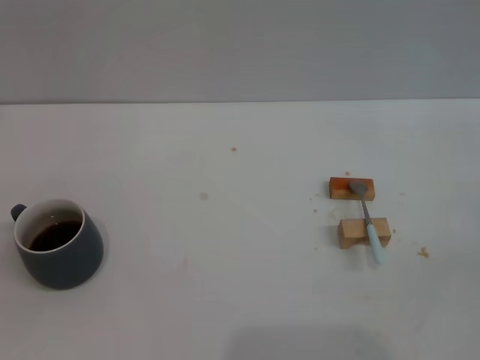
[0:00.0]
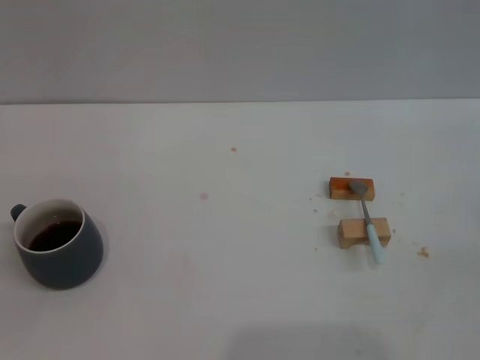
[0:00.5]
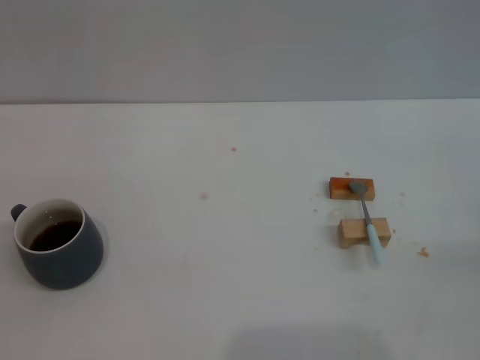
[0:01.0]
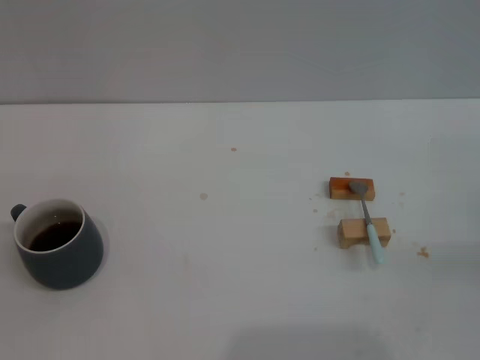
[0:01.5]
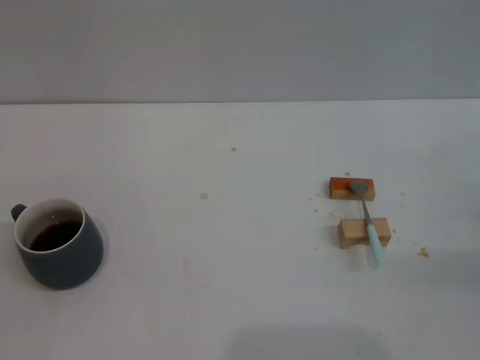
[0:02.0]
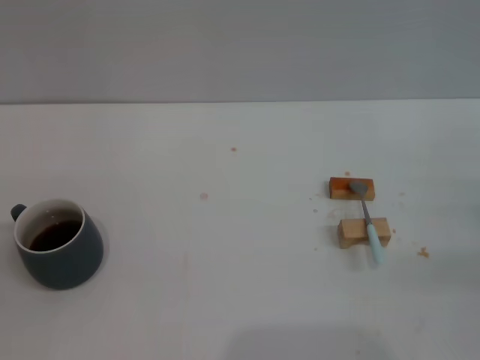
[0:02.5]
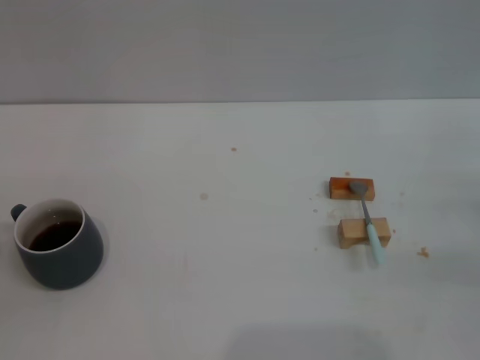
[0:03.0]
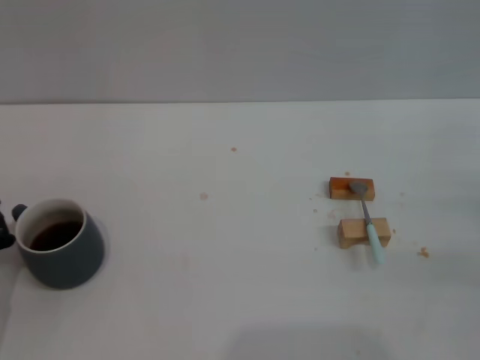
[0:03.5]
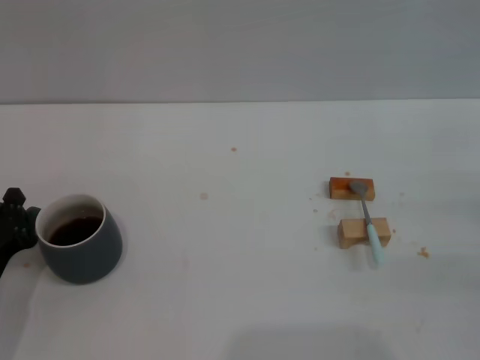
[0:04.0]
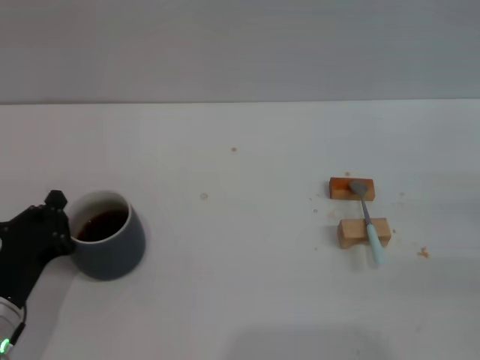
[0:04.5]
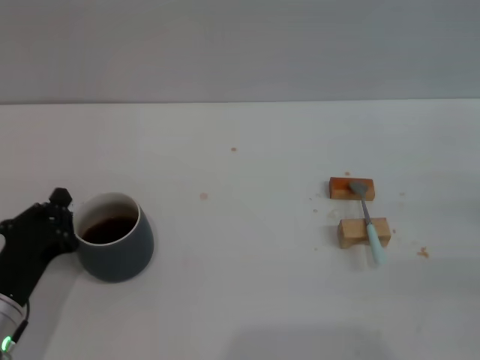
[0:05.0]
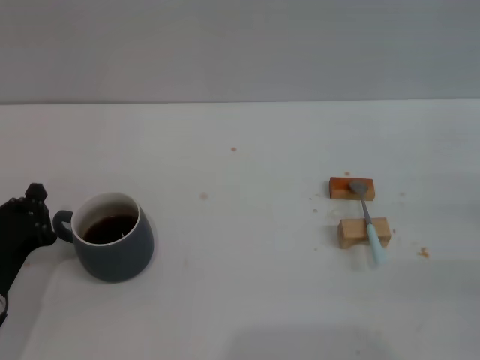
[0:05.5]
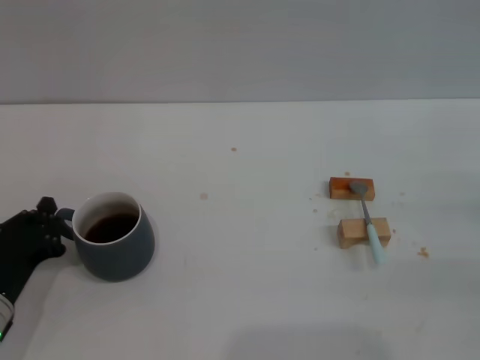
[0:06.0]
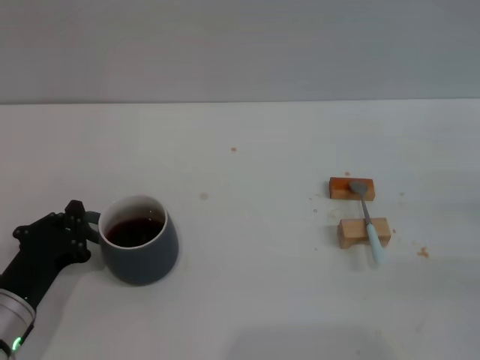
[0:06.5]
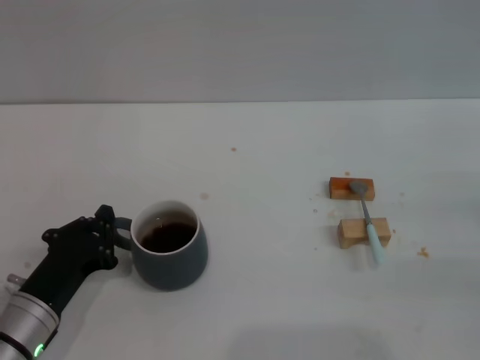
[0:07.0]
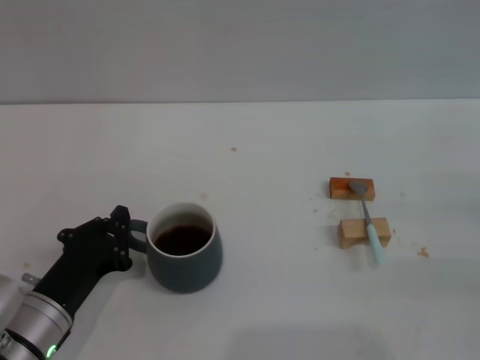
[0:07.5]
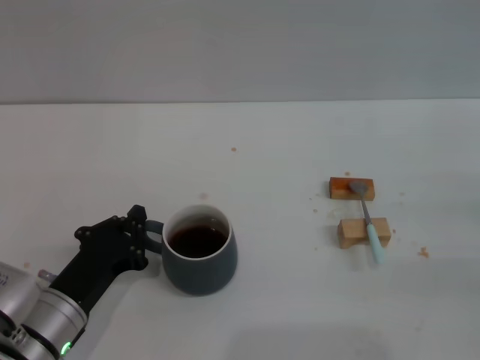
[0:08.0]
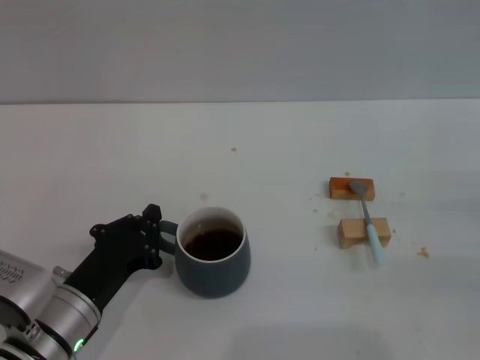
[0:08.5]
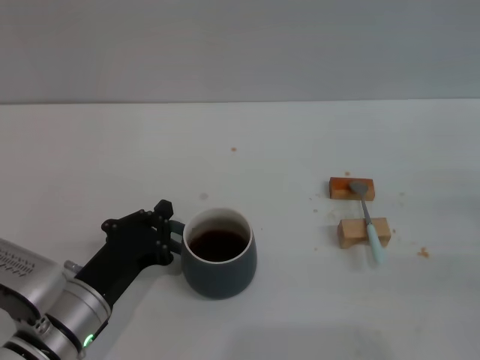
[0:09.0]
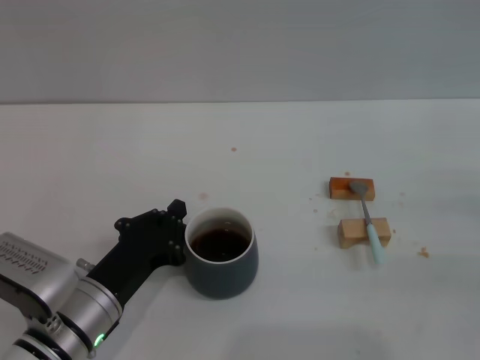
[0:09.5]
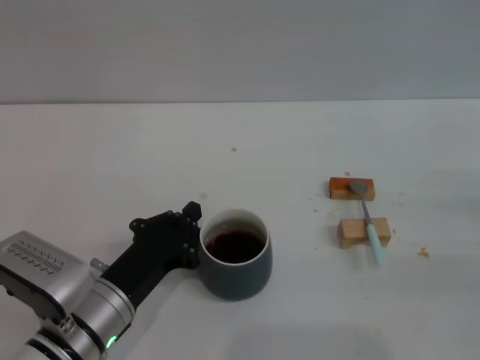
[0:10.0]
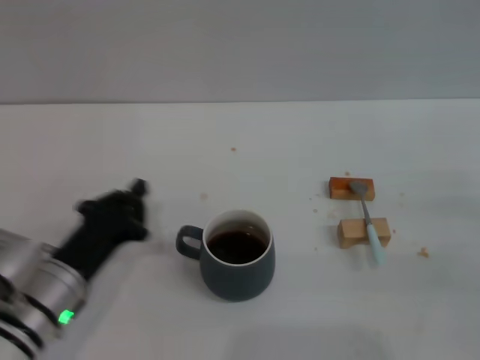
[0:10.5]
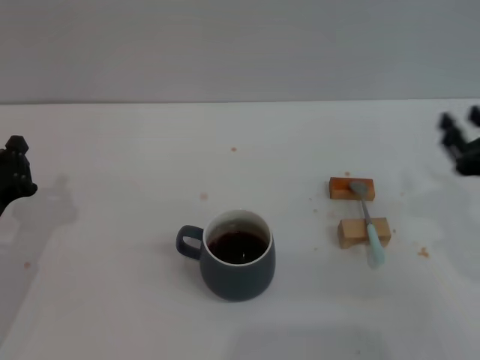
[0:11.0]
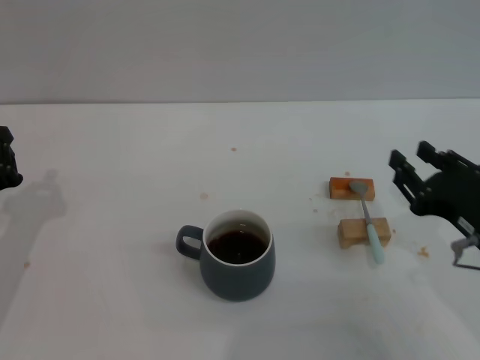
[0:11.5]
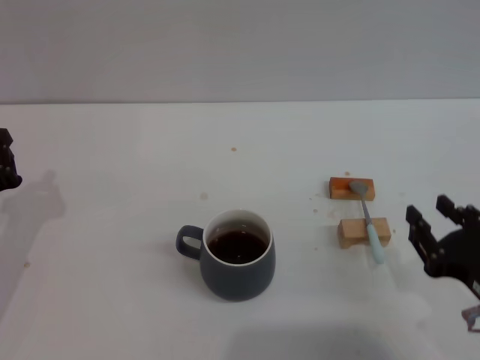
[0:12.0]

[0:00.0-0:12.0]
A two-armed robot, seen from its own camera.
Task of the whole recording: Move the grey cup to the center, lift the blue spoon, stir it three times in the cup, and put the spoon into the cup.
Step, 0:00.0 to 0:11.0: Move the cup with coffee to the center of view with the left gripper.
0:02.0 to 0:04.0: The left gripper heads to the right, covering approximately 10 cm, and closes.
0:04.0 to 0:06.0: There are only small adjustments of the grippers.
0:06.0 to 0:08.0: The left gripper is displaced to the right by roughly 5 cm.
0:08.0 to 0:10.0: The grippers stay close to where they were, moving slightly.
0:10.0 to 0:12.0: The right gripper is displaced to the left and backward by about 15 cm; the left gripper is displaced to the left by roughly 15 cm.

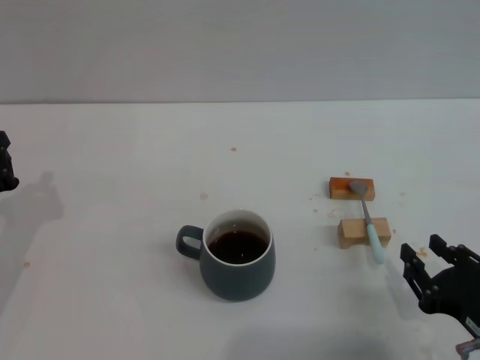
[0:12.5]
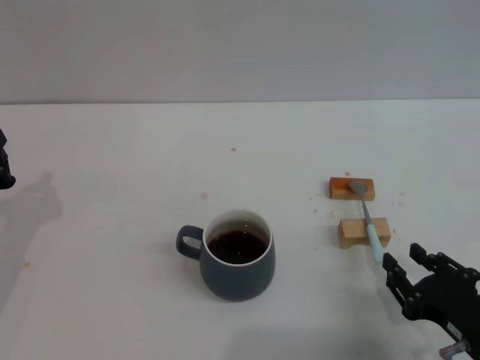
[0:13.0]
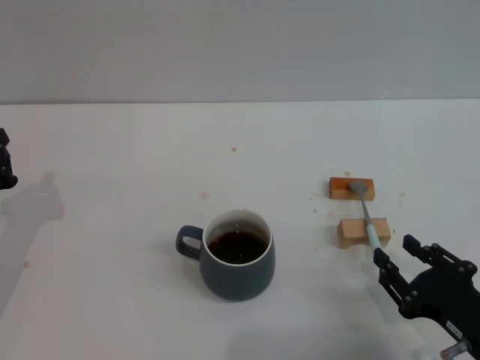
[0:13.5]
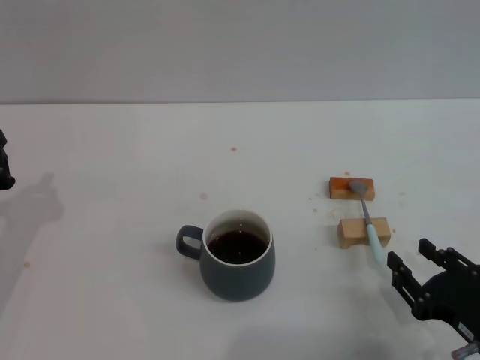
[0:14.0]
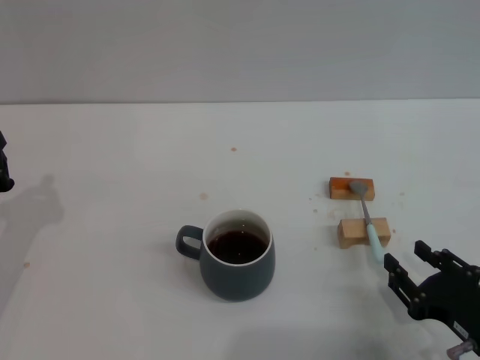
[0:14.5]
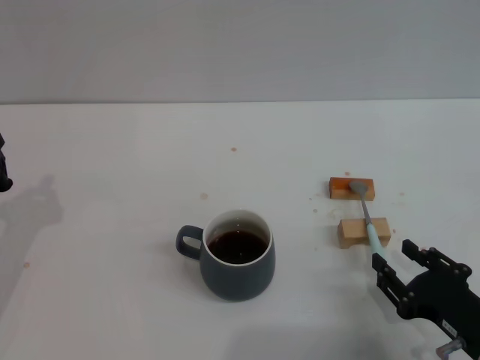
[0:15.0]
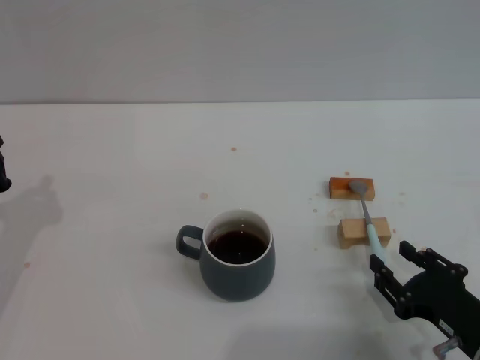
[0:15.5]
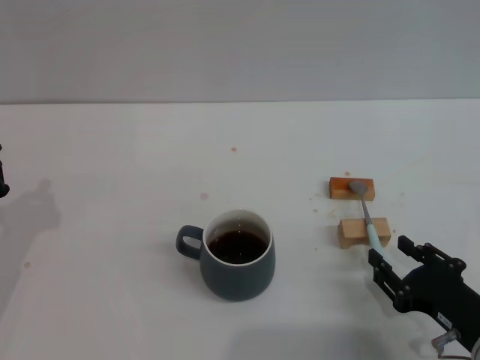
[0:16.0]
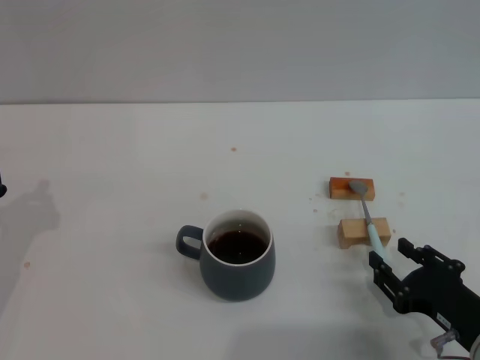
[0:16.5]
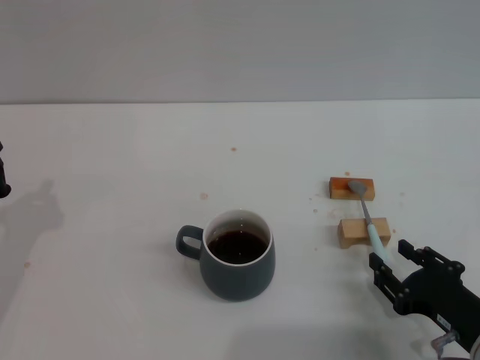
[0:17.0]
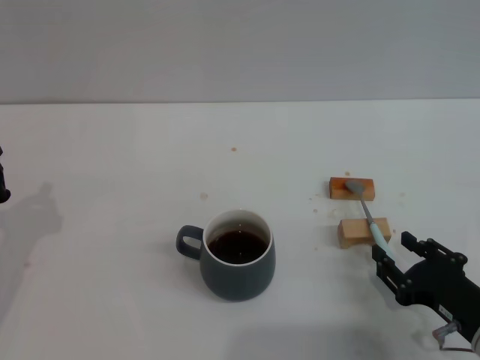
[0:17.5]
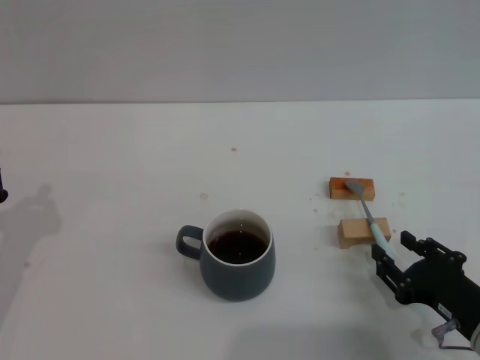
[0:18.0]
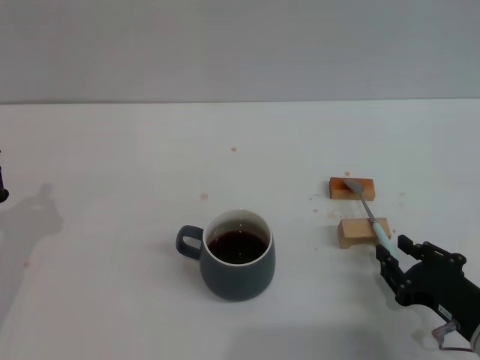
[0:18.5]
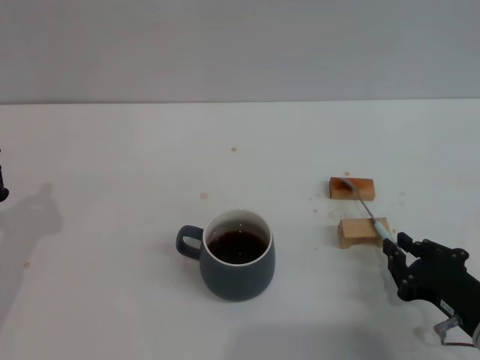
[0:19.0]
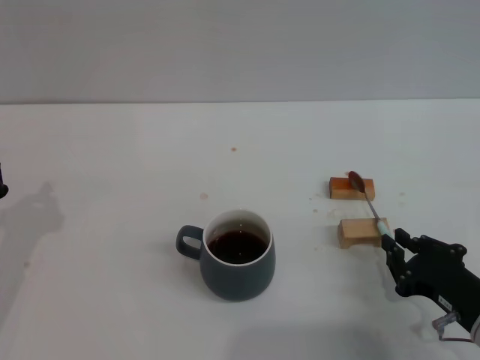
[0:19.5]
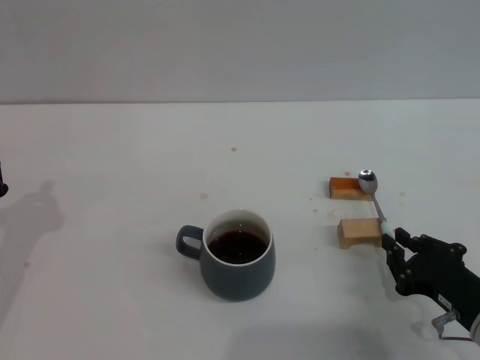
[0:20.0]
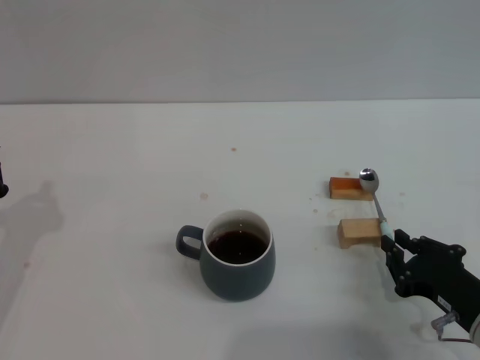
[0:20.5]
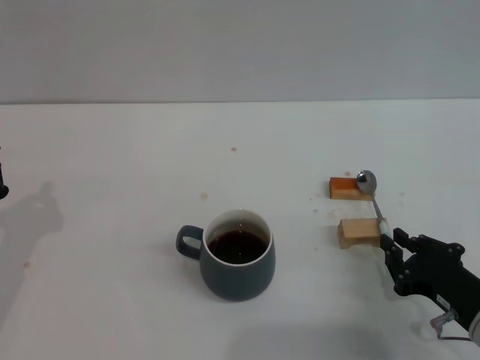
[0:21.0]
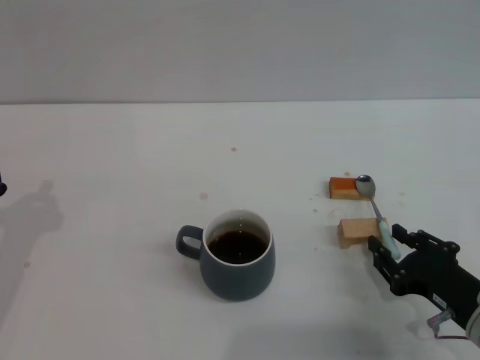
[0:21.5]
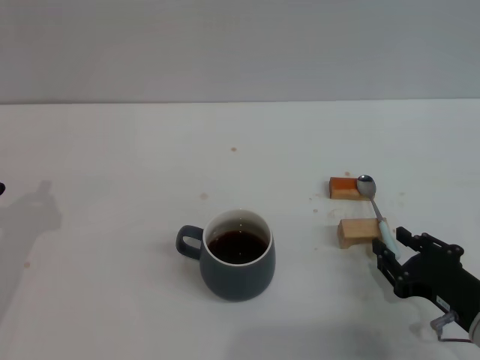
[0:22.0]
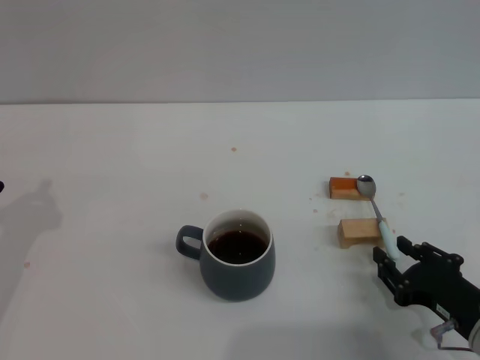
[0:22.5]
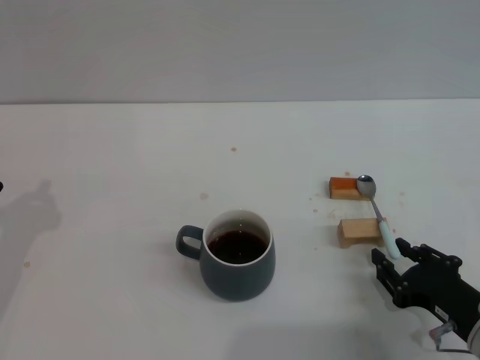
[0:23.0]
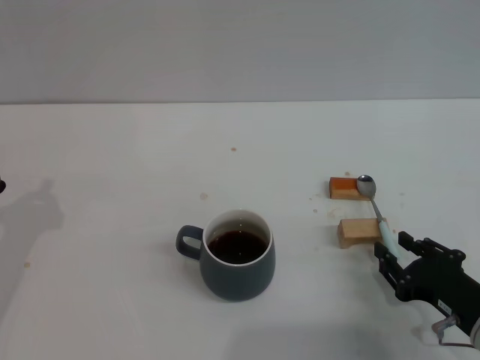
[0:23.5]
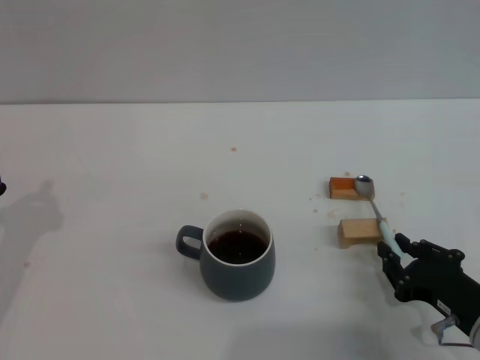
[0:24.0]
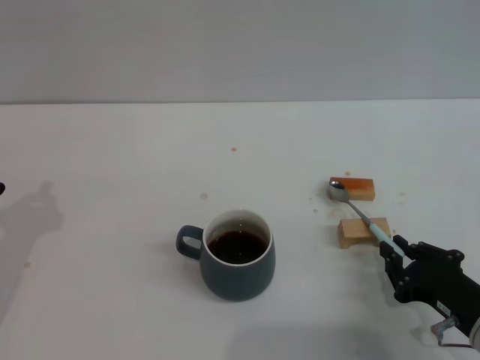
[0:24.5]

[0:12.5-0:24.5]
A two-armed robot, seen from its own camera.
Task of the whole recording: Move the grey cup to the center, lift the blue spoon, stir it three times in the cup, and put the spoon into the cup.
0:12.5 to 0:16.5: The grippers stay close to where they were, moving slightly.
0:16.5 to 0:18.5: Both grippers stay about where they are.
0:18.5 to 0:20.5: The right gripper closes its fingers.
0:20.5 to 0:22.5: The right gripper opens up.
0:22.5 to 0:24.5: The right gripper closes.

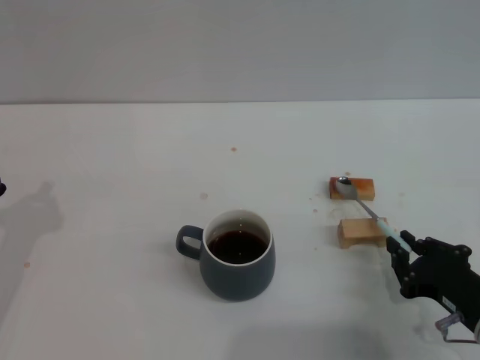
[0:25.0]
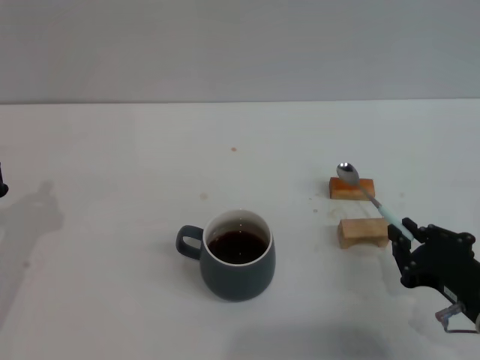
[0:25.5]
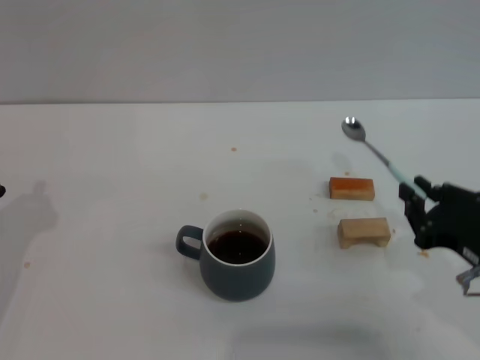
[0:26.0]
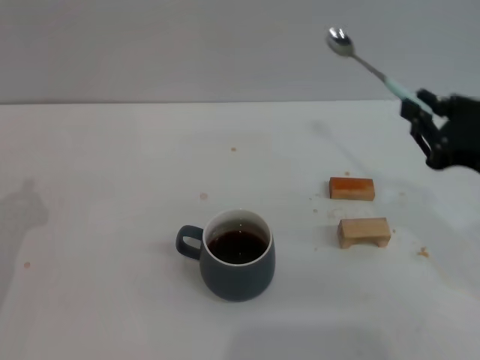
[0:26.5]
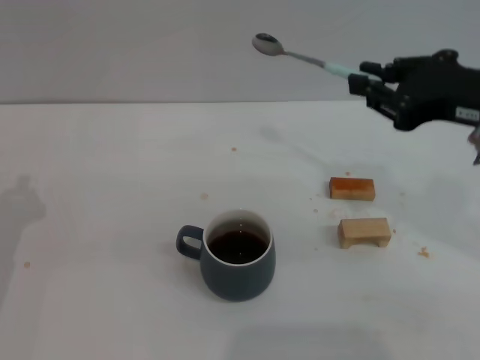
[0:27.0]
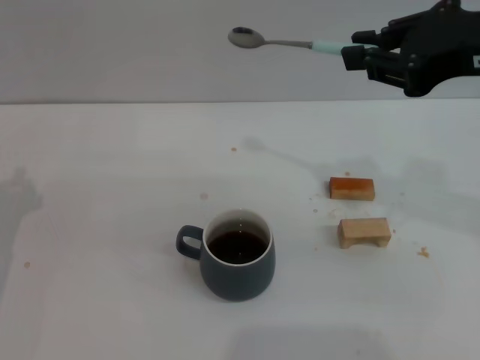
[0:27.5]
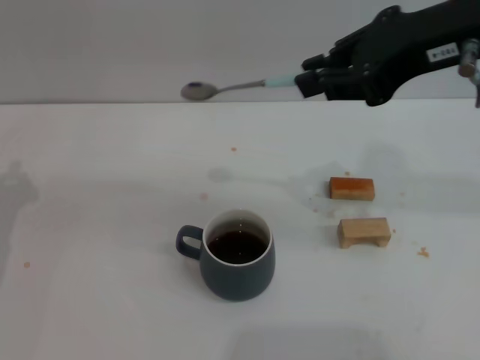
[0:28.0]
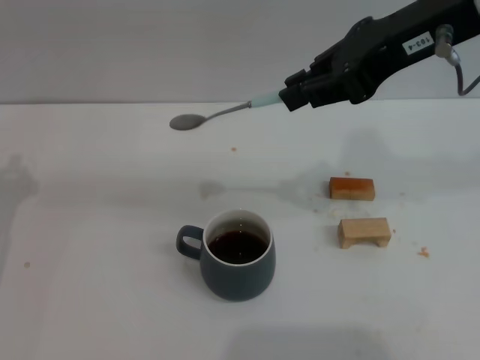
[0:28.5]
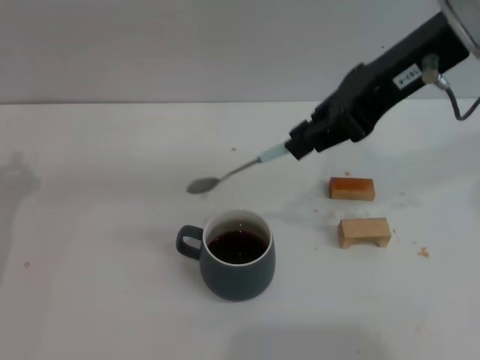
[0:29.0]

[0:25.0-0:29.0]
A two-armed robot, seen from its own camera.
Task of the whole recording: Move the grey cup to the center, lift the blue spoon, stir it three times in the cup, and put the spoon into the cup.
0:25.0 to 0:27.0: The right gripper goes some 20 cm upward and forward.
0:27.0 to 0:29.0: The right gripper travels upward, to the left and forward by some 15 cm.
